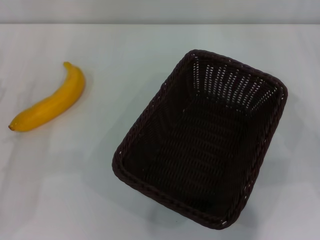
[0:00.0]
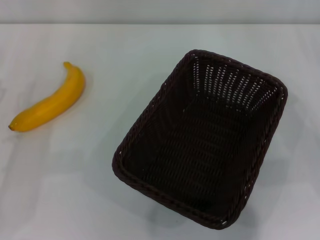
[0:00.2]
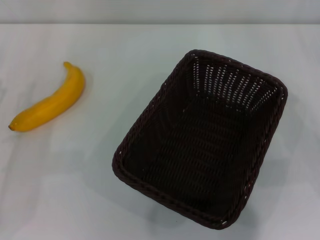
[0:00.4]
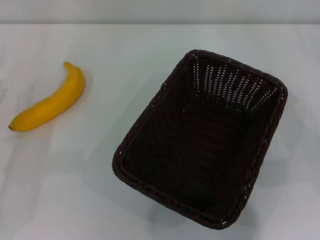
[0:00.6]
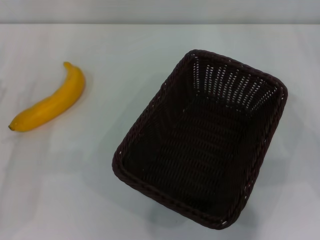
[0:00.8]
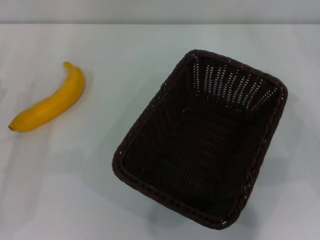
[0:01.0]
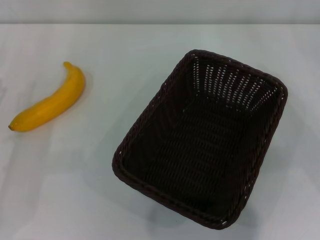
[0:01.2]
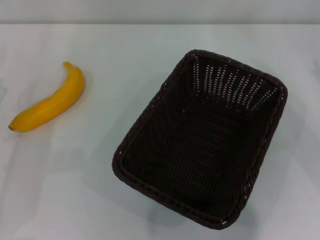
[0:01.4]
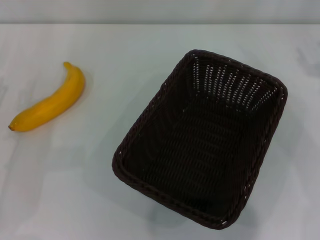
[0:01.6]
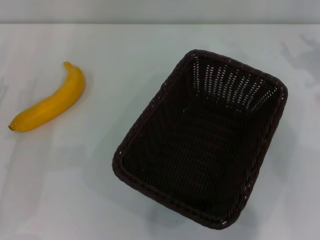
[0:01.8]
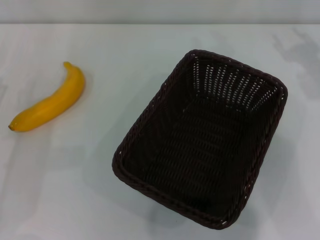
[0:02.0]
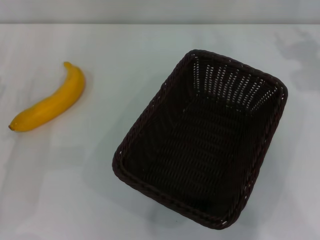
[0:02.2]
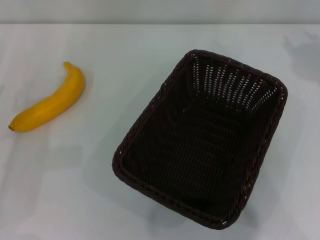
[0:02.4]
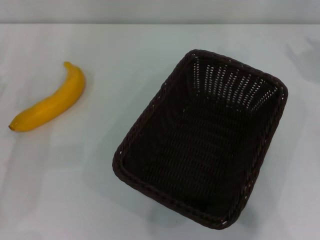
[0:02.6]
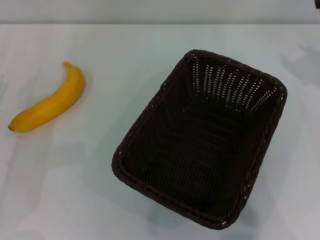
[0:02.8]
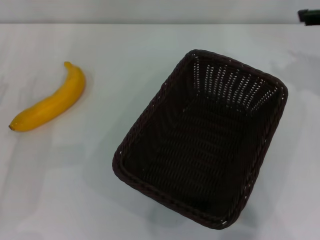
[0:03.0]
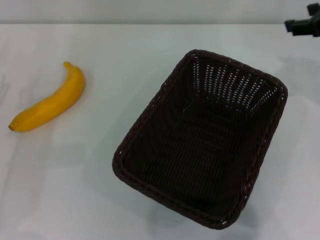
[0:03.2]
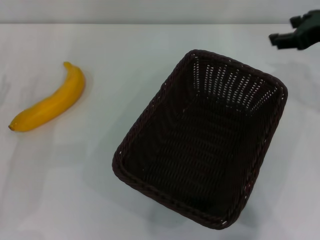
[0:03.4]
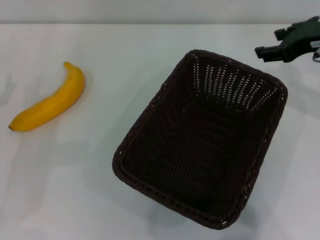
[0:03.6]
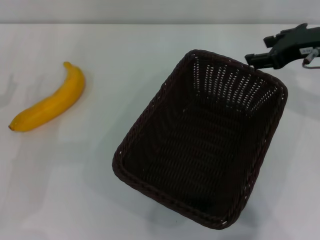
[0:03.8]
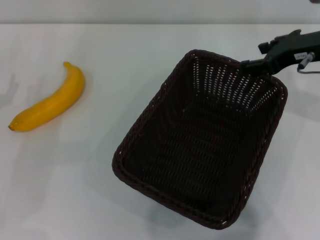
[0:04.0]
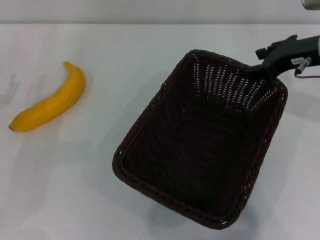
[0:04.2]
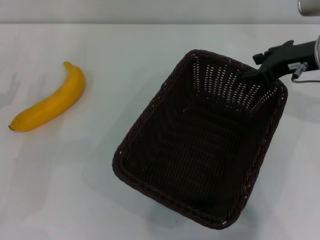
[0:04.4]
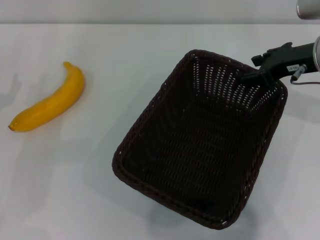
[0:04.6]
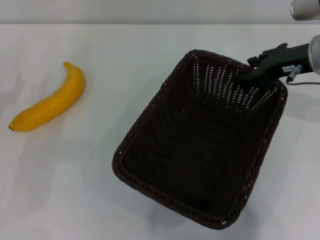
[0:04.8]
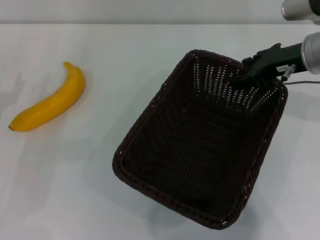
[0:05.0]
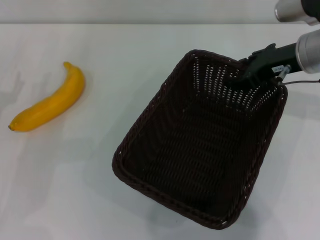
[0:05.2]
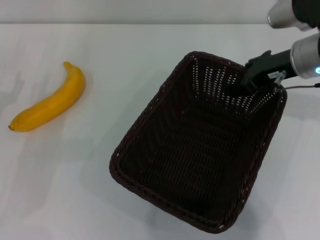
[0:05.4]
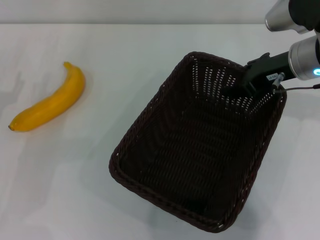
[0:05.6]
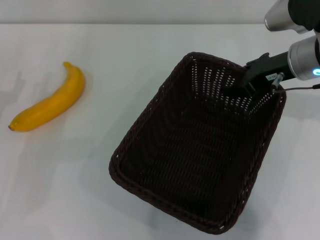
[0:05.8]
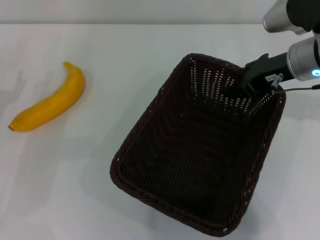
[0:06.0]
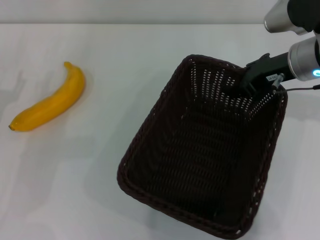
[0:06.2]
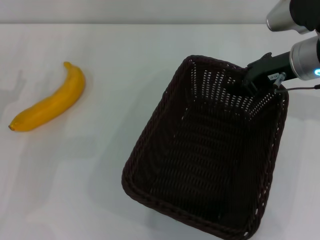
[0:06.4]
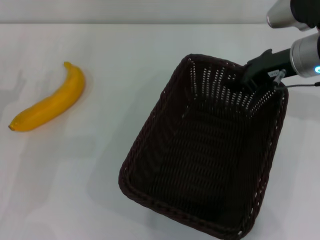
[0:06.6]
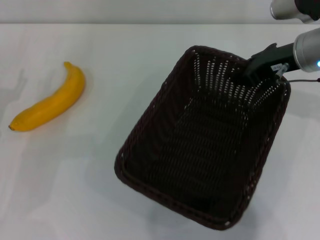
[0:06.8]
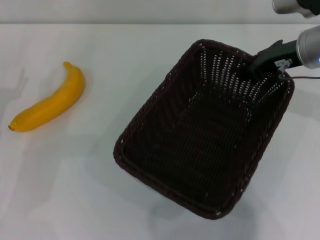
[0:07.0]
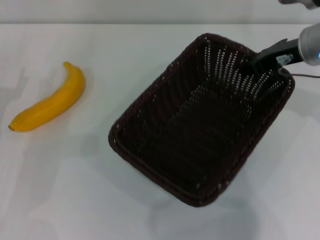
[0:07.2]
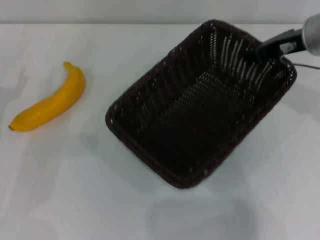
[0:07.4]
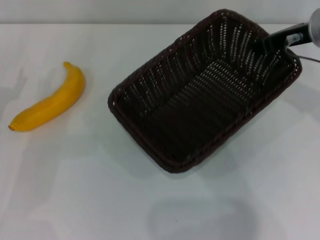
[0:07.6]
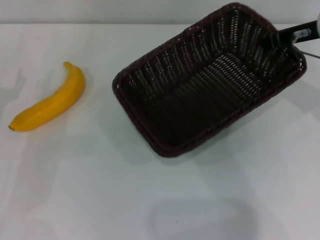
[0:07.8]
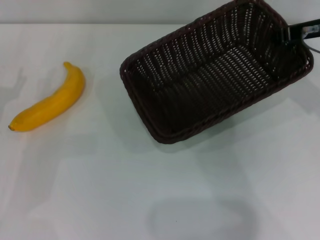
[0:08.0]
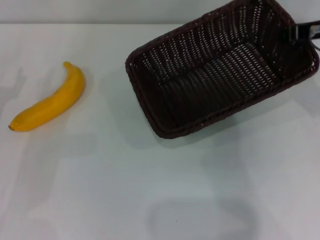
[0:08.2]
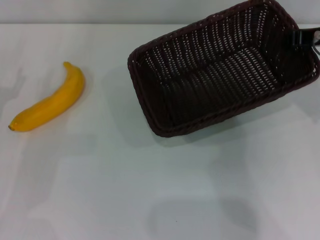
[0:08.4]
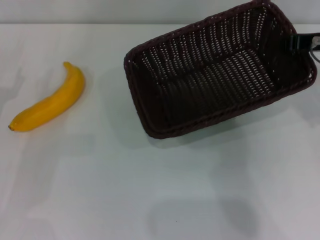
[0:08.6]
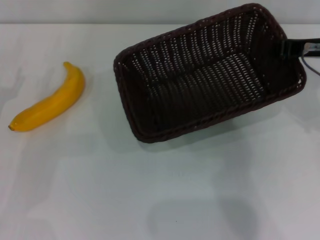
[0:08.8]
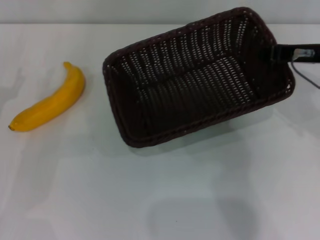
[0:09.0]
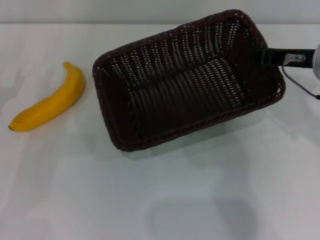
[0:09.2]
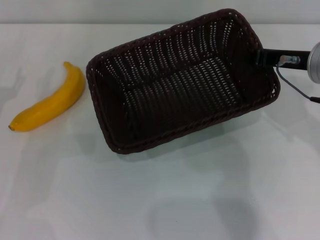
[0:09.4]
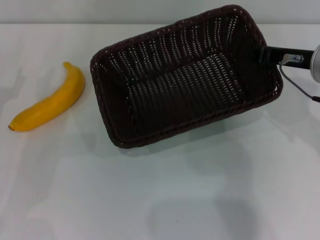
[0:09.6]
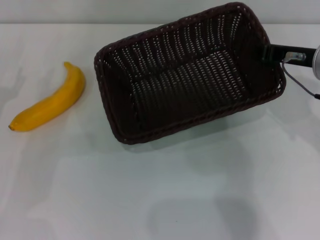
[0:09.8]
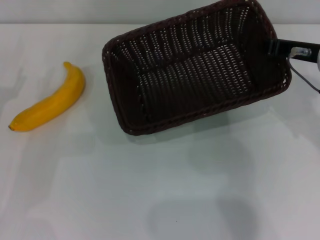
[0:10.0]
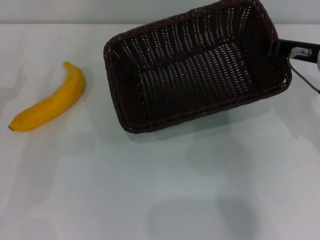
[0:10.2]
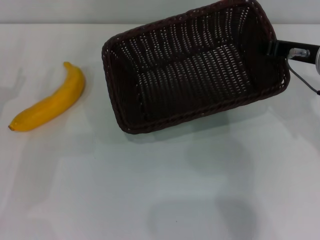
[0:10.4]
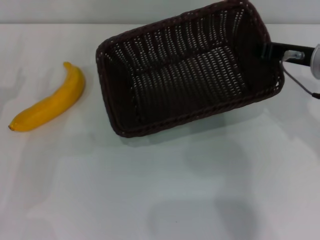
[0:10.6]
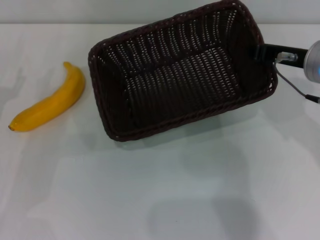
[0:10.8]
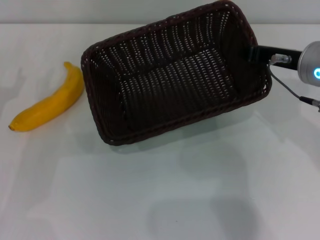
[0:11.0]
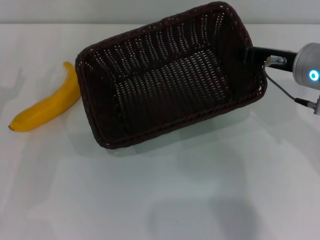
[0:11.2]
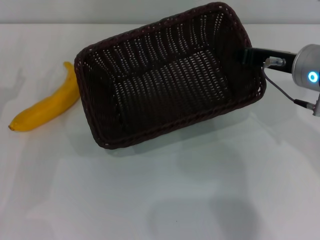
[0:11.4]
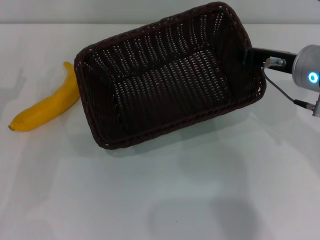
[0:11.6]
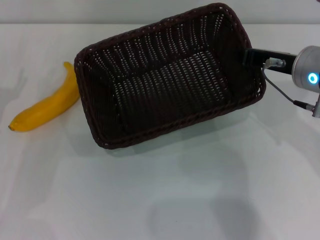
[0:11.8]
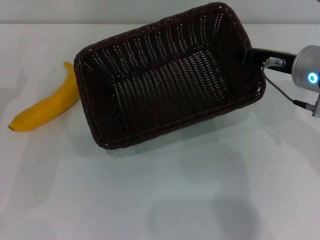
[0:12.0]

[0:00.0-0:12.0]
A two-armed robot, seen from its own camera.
Step, 0:00.0 to 0:07.8: Pick up the dark basket with the right gripper.
0:03.0 to 0:04.4: The right gripper shifts some 10 cm downward and to the left.
0:04.4 to 0:06.0: The grippers stay close to where they were, moving slightly.
0:06.0 to 0:07.6: The right gripper closes up.
0:07.6 to 0:09.0: The right gripper moves approximately 5 cm.
0:09.0 to 0:12.0: The grippers move only a little.

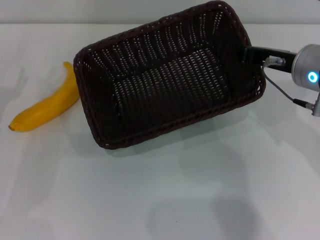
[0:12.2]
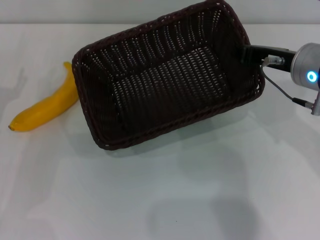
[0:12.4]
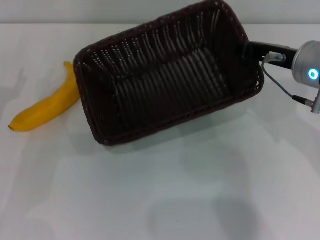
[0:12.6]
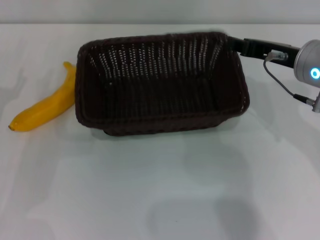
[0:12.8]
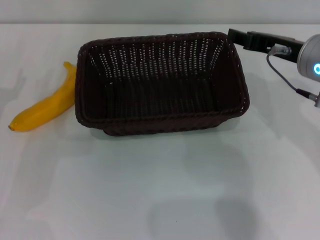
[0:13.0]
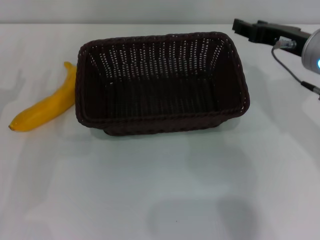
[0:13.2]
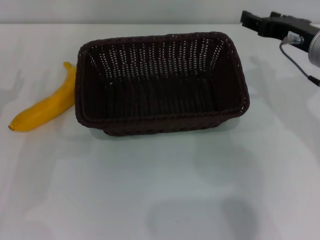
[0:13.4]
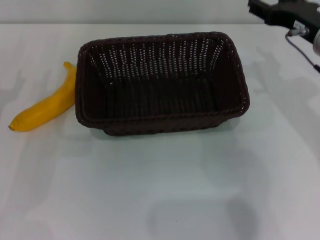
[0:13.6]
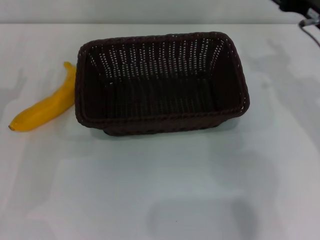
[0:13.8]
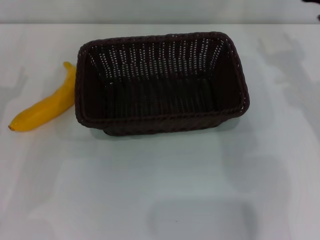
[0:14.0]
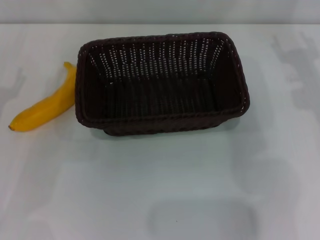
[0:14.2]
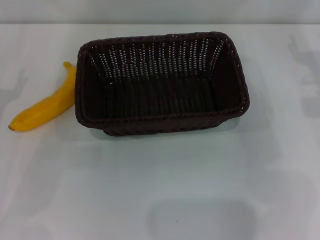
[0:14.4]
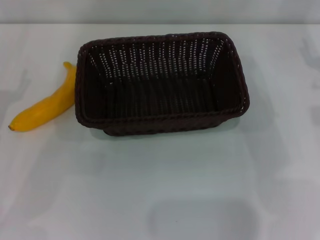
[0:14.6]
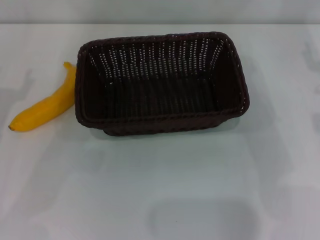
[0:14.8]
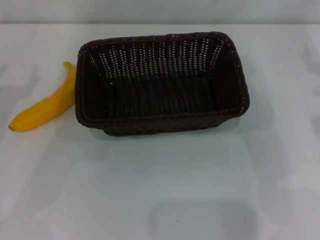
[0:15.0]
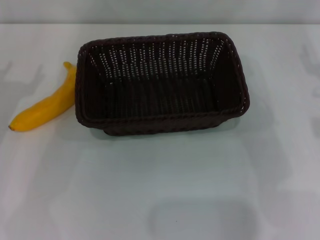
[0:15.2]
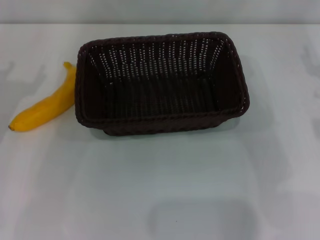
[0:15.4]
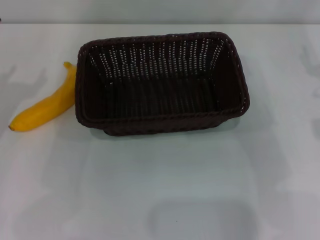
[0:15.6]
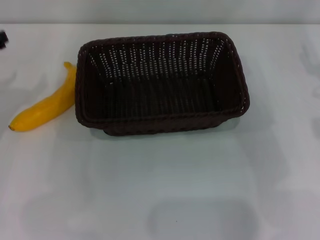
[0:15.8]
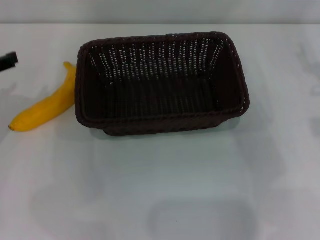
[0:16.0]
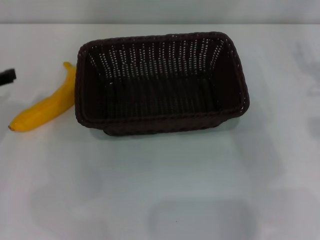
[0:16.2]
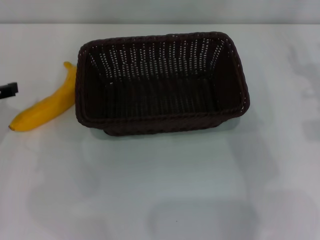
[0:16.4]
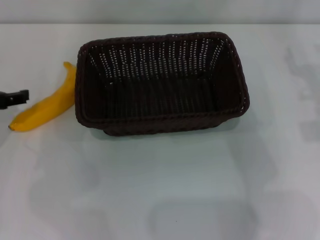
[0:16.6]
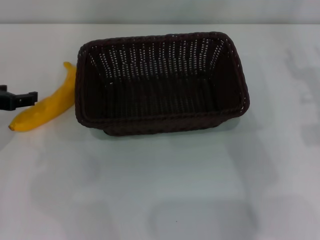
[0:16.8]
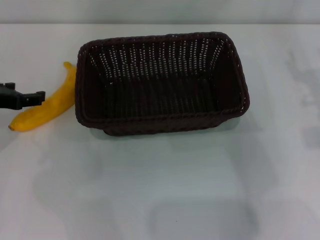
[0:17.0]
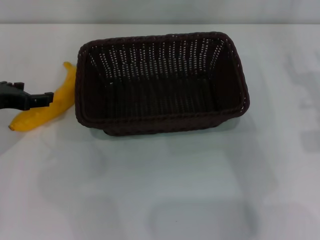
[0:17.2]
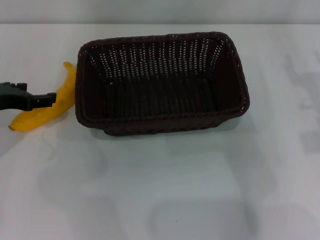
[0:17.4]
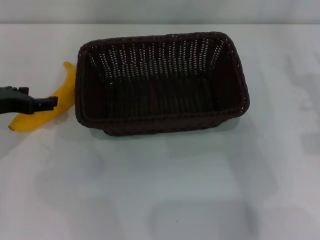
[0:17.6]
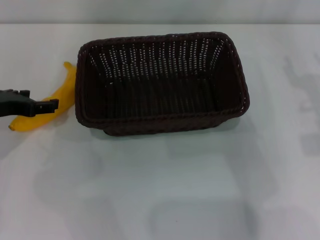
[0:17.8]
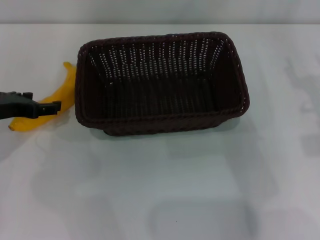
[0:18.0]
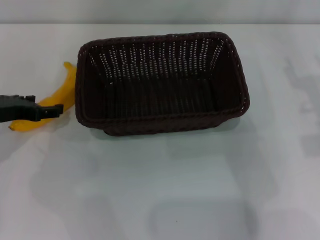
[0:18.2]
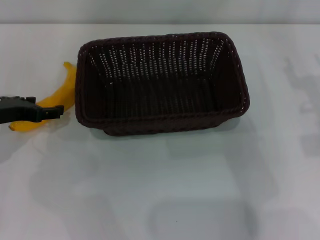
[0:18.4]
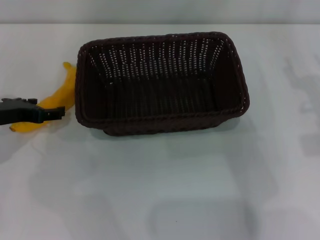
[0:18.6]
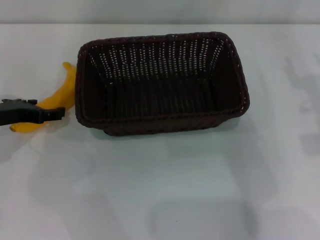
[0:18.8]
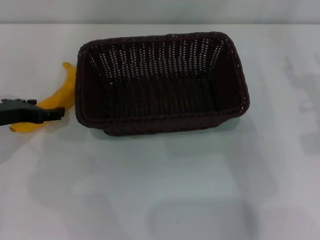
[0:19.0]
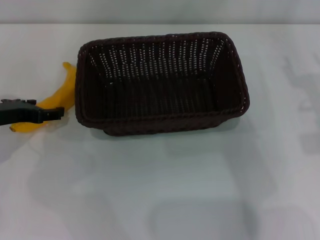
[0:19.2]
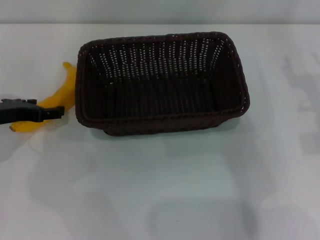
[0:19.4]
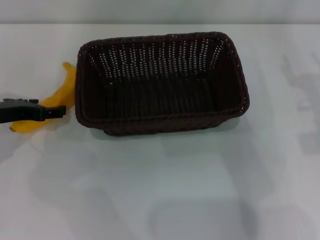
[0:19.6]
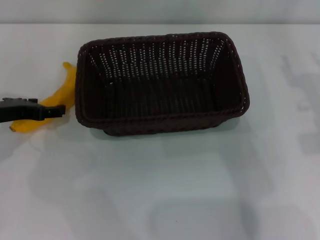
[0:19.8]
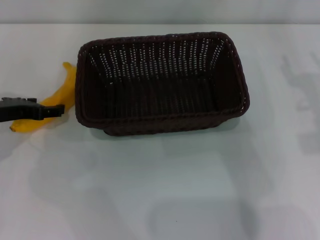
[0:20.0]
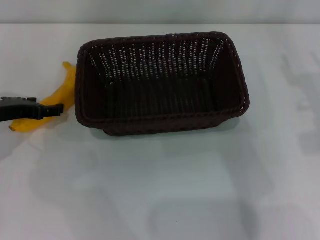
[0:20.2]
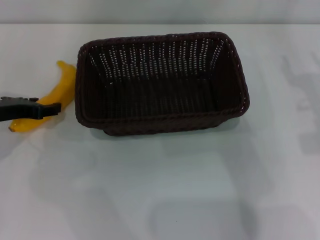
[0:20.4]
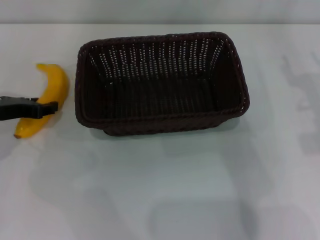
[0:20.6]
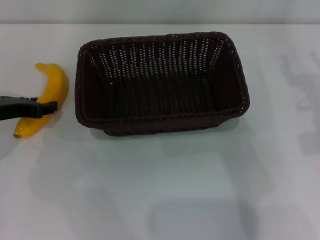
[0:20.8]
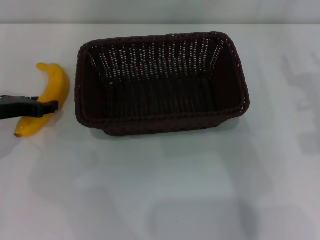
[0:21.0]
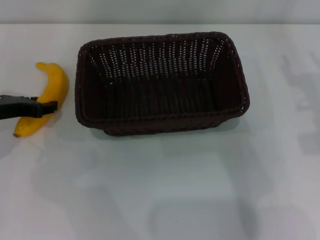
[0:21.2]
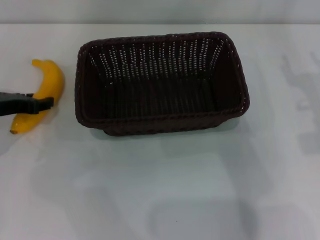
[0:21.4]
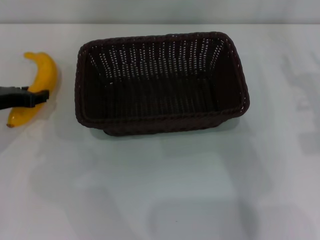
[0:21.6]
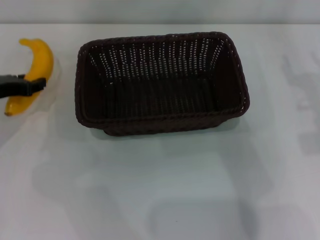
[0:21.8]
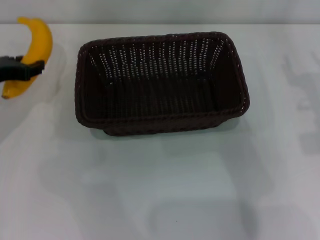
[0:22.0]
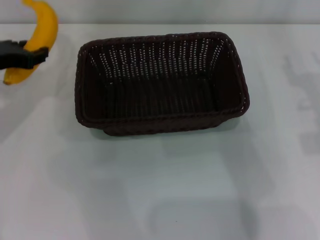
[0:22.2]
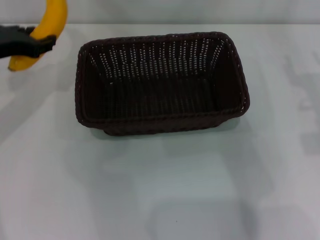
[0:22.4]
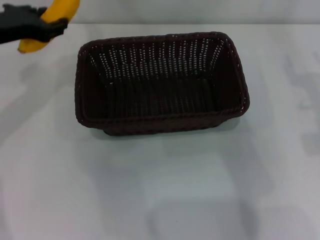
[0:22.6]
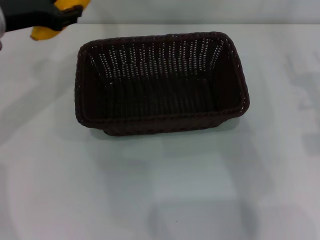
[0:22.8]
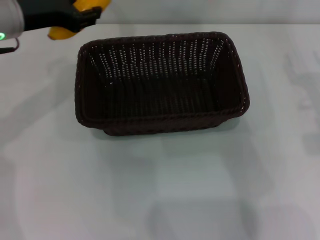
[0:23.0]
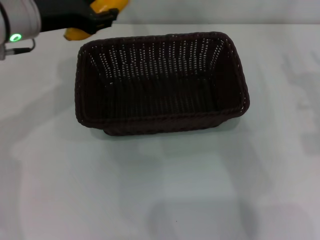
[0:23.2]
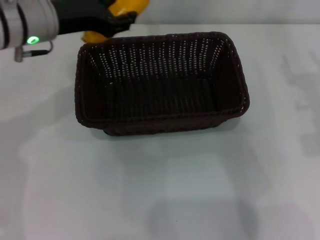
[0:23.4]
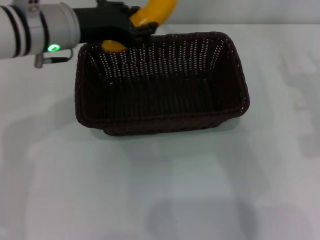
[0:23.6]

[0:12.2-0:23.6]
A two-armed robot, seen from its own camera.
Step, 0:13.6 to 0:22.0: Pick up the banana with the left gripper.
0:12.2 to 0:13.6: The right gripper opens up.
0:13.6 to 0:15.0: The right gripper travels to the right by about 10 cm.
0:16.4 to 0:17.8: The grippers stay close to where they were, moving slightly.
0:17.8 to 0:19.4: The grippers stay close to where they were, moving slightly.
0:19.4 to 0:20.8: The left gripper closes.
0:20.8 to 0:22.2: The left gripper heads upward, covering approximately 5 cm.
0:22.2 to 0:23.6: The left gripper moves to the right, about 15 cm.
